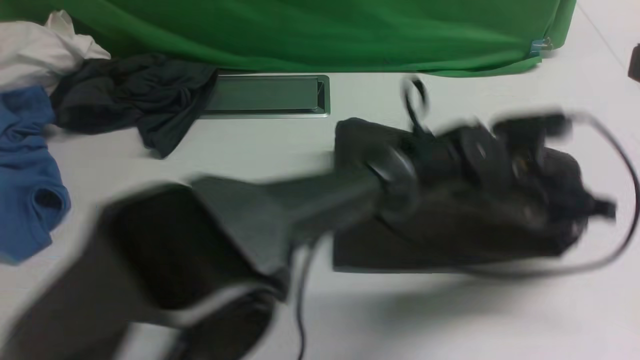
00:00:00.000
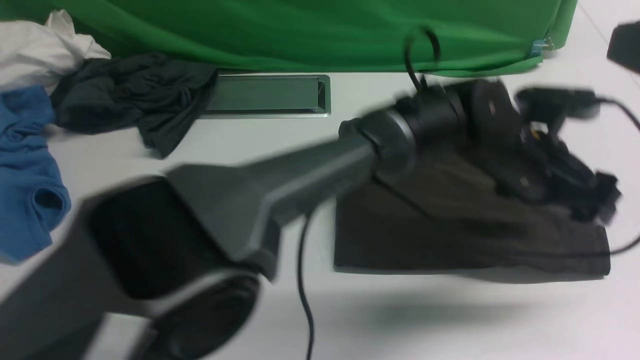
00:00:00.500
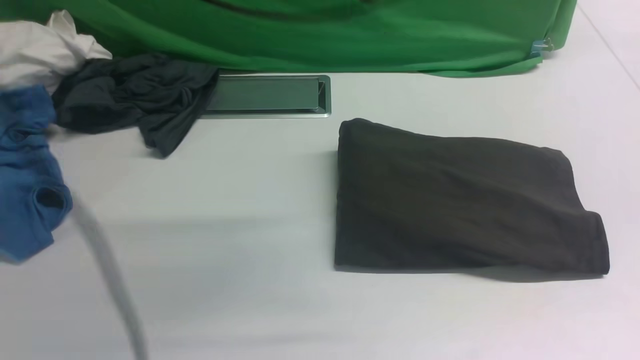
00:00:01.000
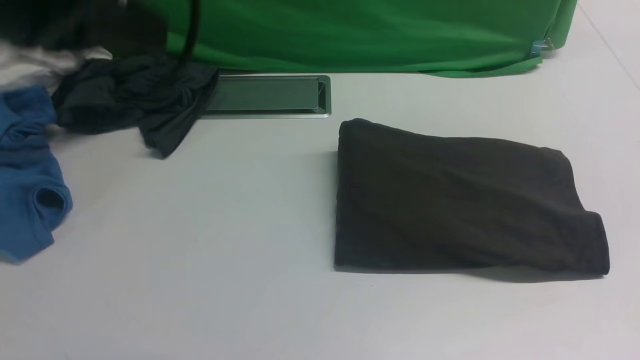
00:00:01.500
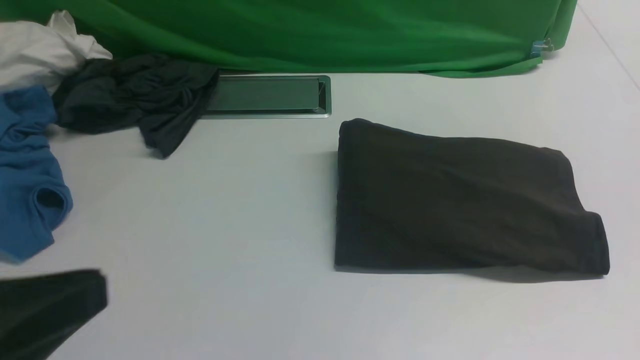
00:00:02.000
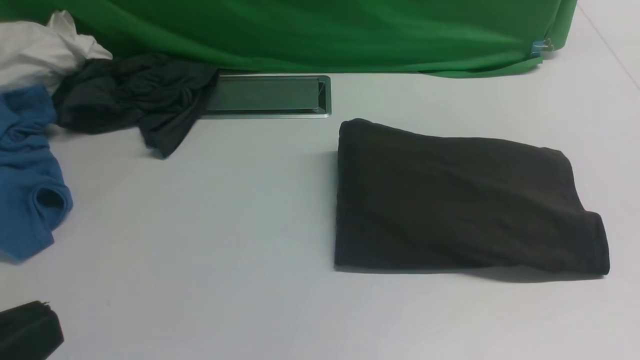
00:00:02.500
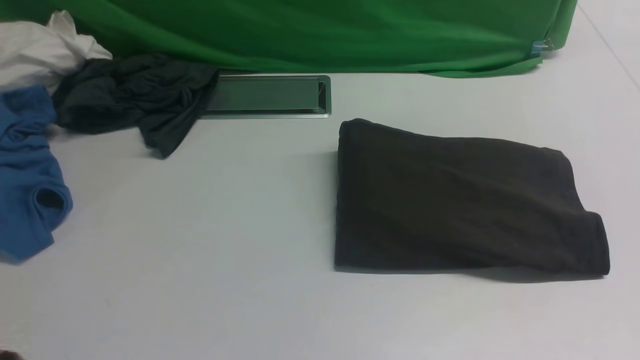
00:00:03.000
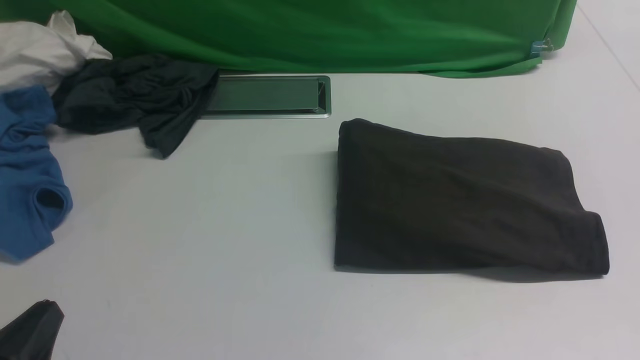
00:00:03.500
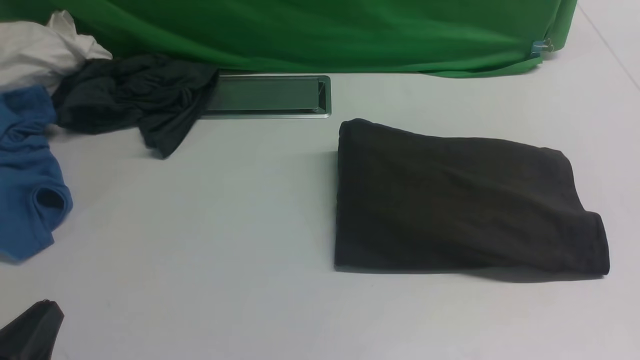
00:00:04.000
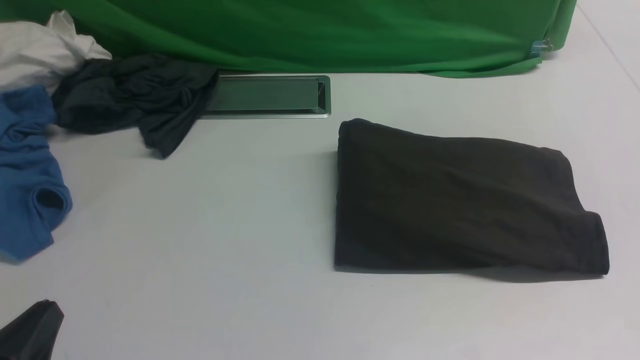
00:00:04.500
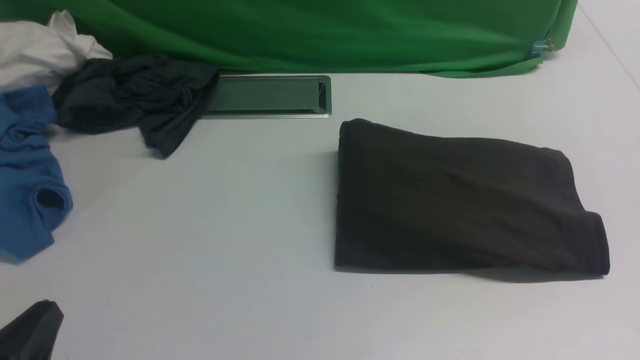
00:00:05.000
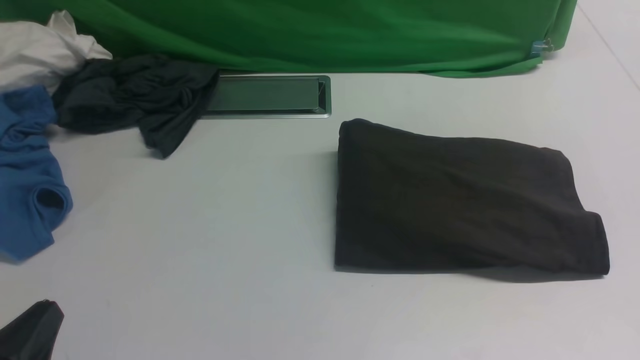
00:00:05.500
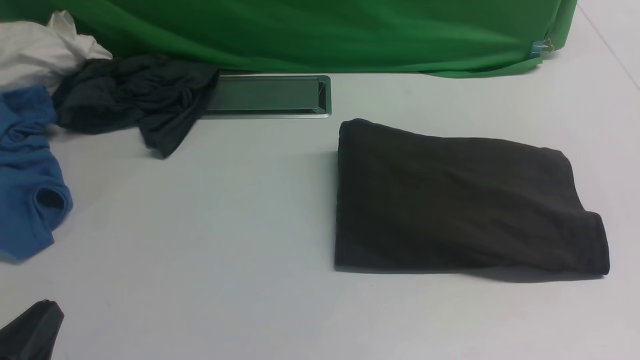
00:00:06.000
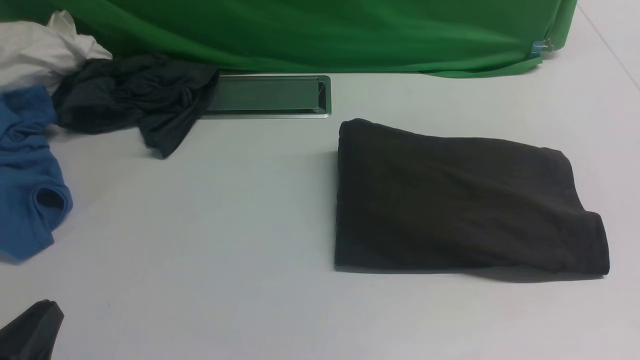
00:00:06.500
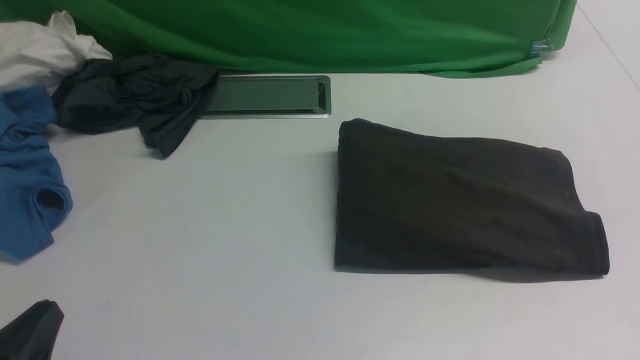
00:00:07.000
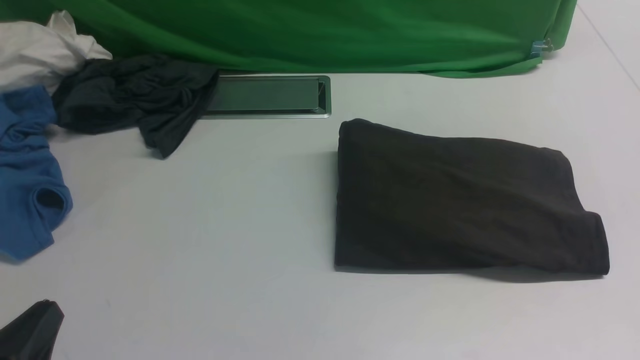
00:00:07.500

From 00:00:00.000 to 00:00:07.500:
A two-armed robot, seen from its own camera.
From 00:00:00.000 to 00:00:02.000: The right gripper heads backward and downward, covering roughly 15 cm; the left gripper travels to the left, backward and upward by roughly 50 cm, and opens, then closes once more.
From 00:00:02.000 to 00:00:04.000: The left gripper moves downward, about 15 cm.
From 00:00:05.500 to 00:00:07.500: Both grippers stay about where they are.

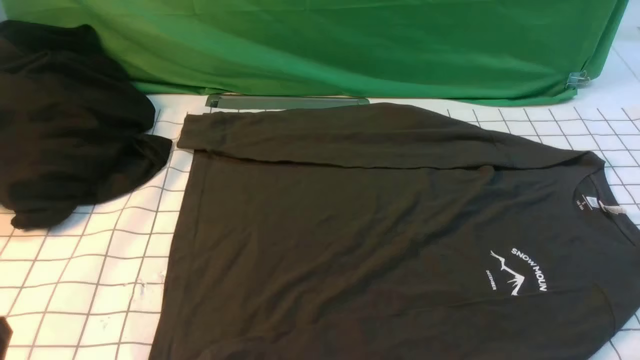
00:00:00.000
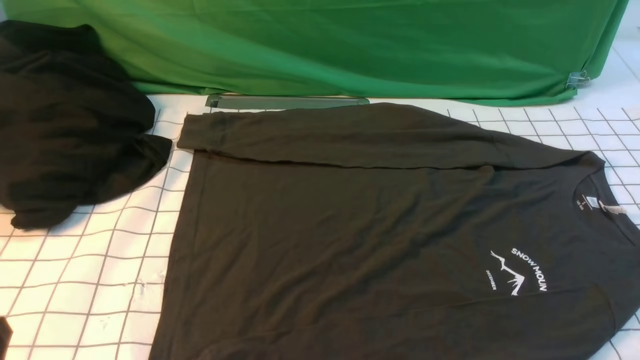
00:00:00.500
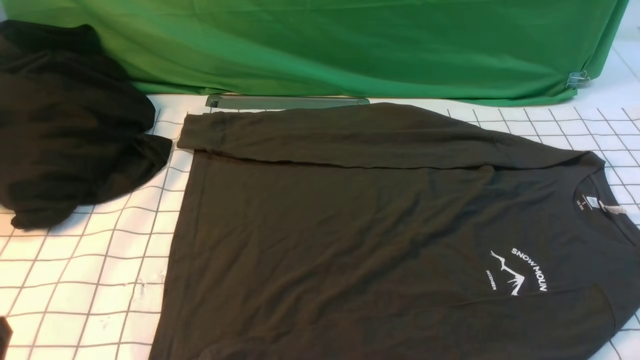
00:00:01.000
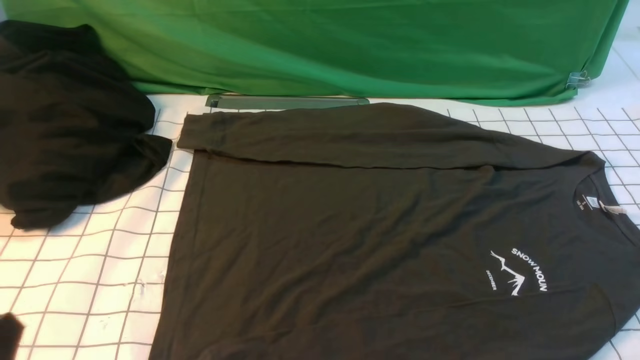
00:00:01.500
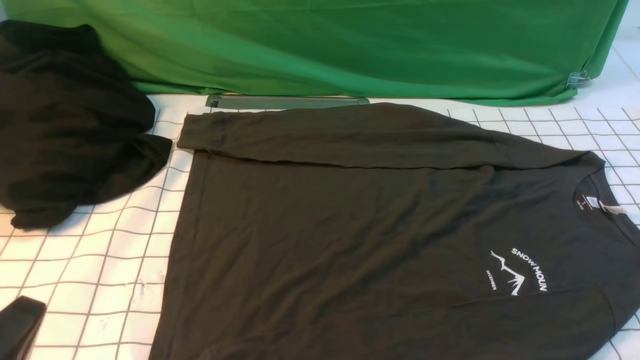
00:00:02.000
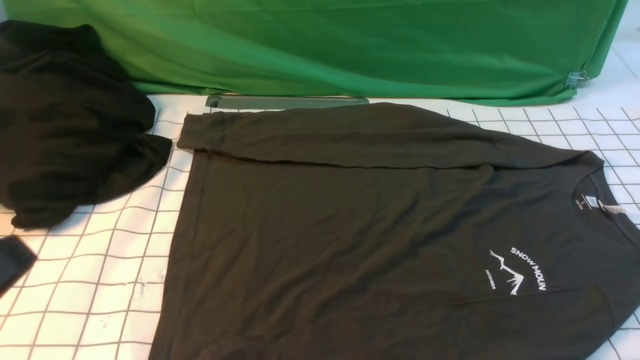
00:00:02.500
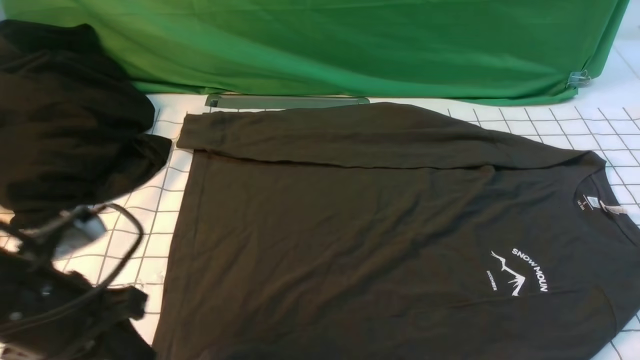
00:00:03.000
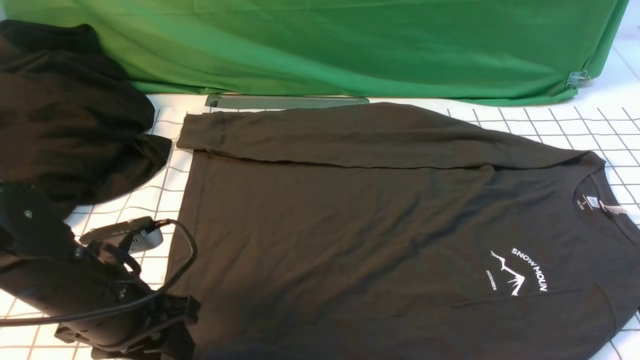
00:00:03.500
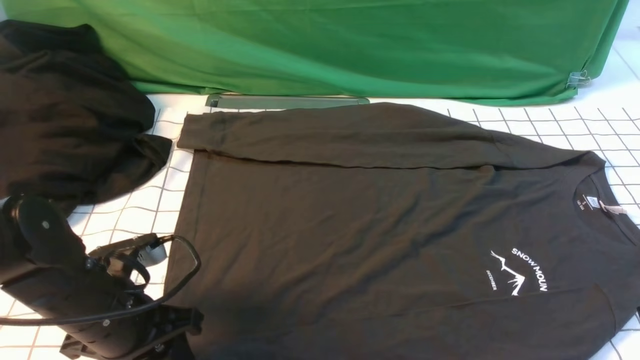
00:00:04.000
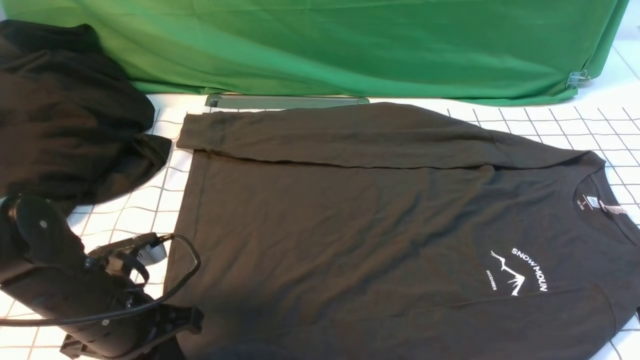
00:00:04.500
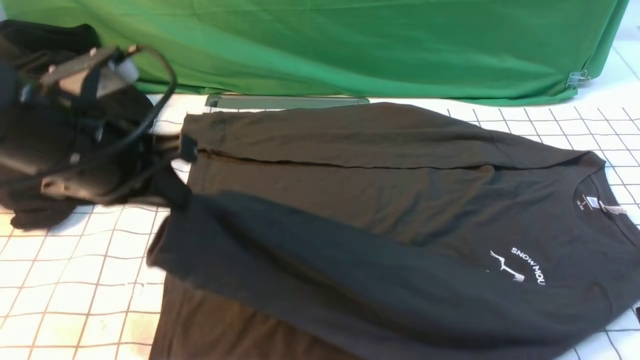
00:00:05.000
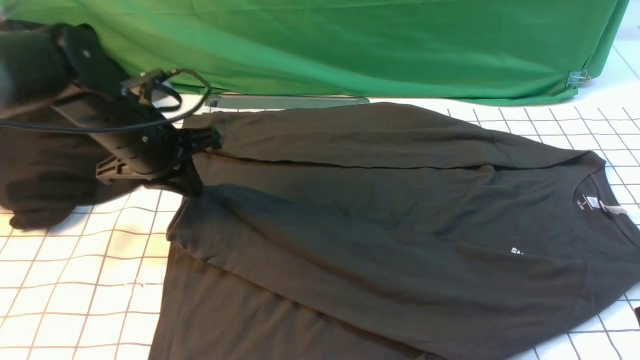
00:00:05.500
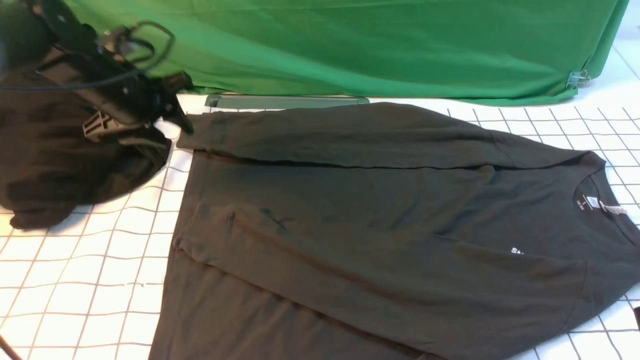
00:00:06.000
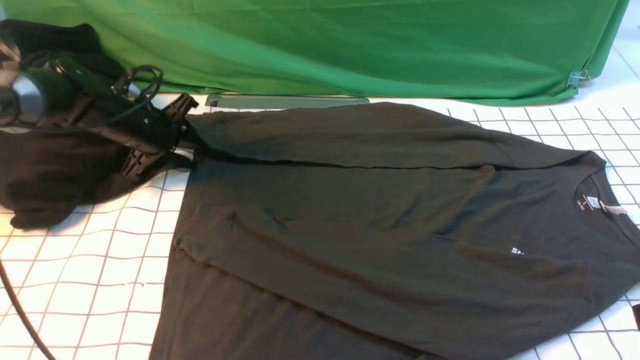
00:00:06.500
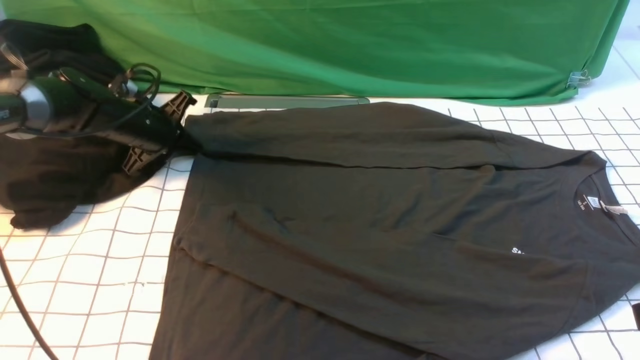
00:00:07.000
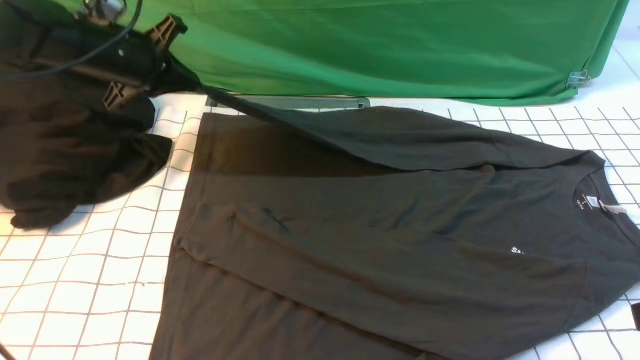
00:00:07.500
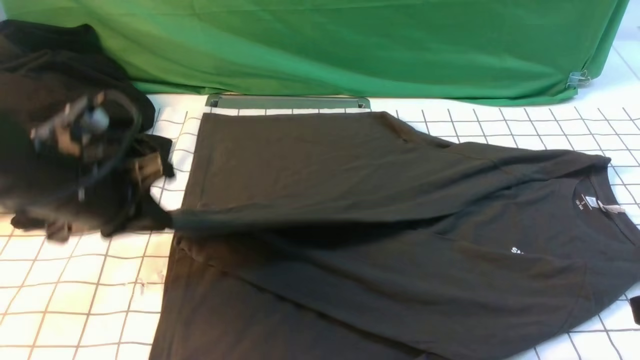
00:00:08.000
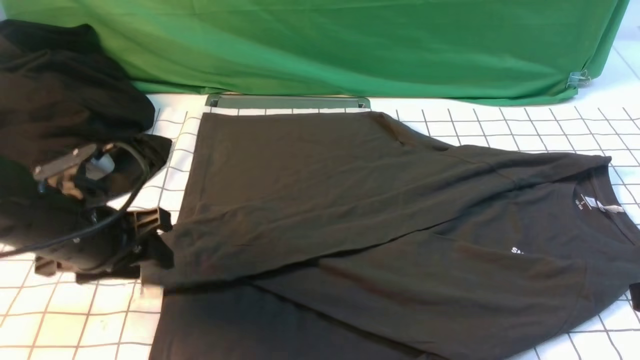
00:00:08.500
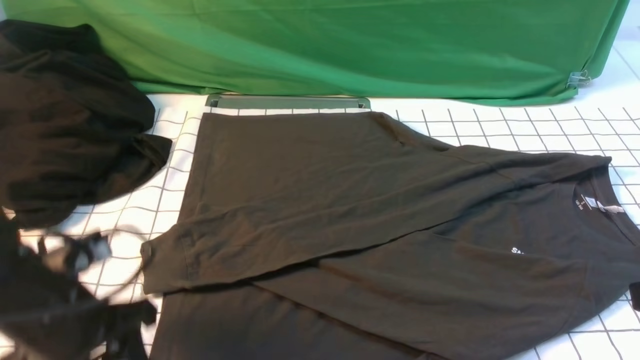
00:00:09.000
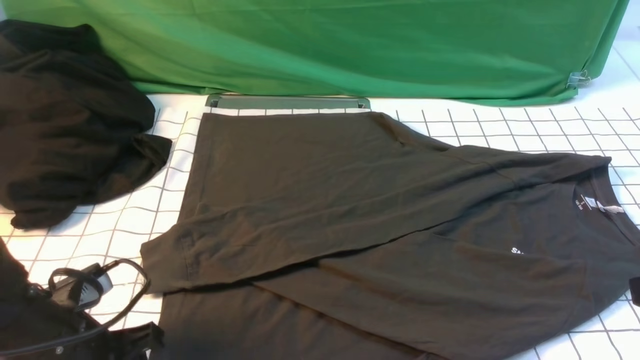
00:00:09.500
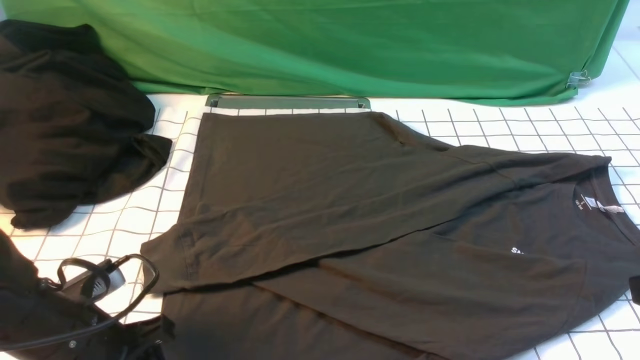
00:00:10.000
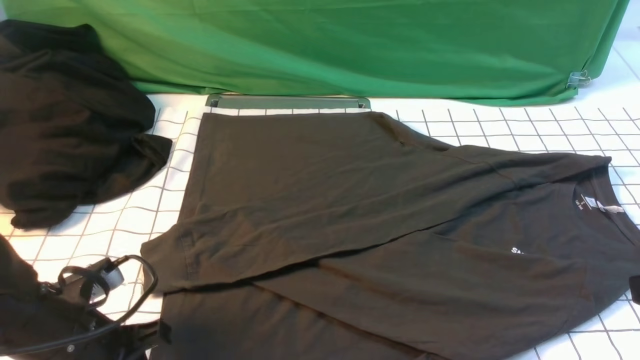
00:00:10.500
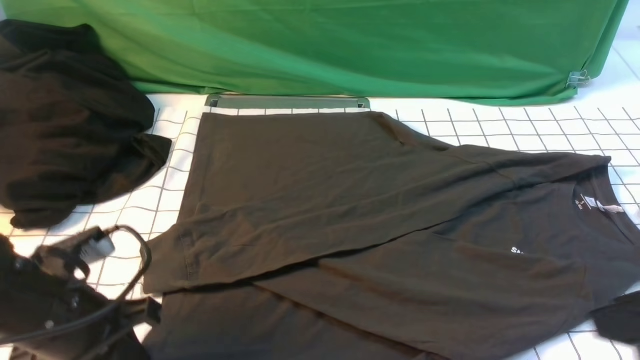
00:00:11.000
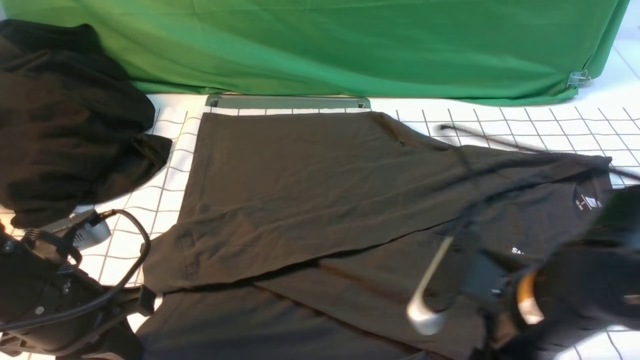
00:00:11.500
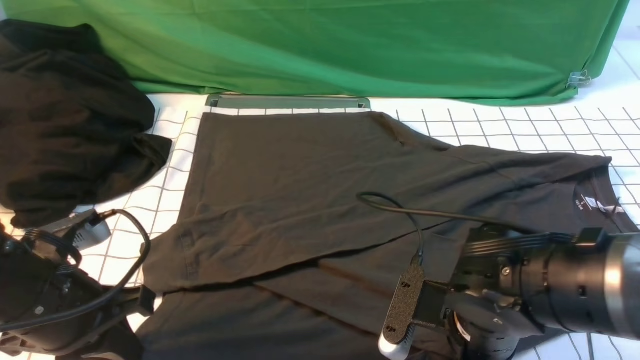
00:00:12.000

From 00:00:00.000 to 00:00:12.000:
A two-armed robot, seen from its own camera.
Step, from 00:00:00.000 to 00:00:04.000: use the left arm to clamp the cuff closest to it.
Step, from 00:00:05.000 to 00:00:05.500: use the left arm to drag and place the cuff at the centered position on the left edge of the fabric.
Step, from 00:00:06.000 to 00:00:07.000: use the left arm to clamp the cuff farthest from it.
Step, from 00:00:07.500 to 00:00:08.500: use the left arm to drag and drop the cuff onto the cuff closest to the left arm.
From 00:00:02.000 to 00:00:04.000: The right gripper goes about 15 cm upward and forward. The left gripper shifts approximately 15 cm forward, and opens its fingers.
From 00:00:04.000 to 00:00:06.000: The left gripper shifts some 25 cm forward, and closes, then opens again.
From 00:00:06.000 to 00:00:08.000: The left gripper goes approximately 15 cm backward, and closes up.
From 00:00:08.000 to 00:00:10.000: The left gripper heads backward and downward, covering some 15 cm, and opens.
From 00:00:10.000 to 00:00:12.000: The right gripper moves to the left, downward and forward, approximately 25 cm, and opens its fingers. Meanwhile the left gripper is displaced upward by some 5 cm, and closes.
